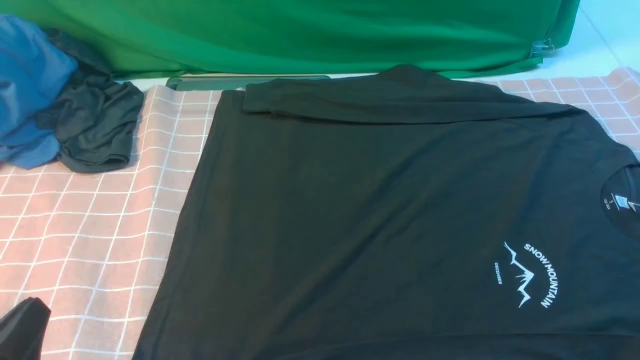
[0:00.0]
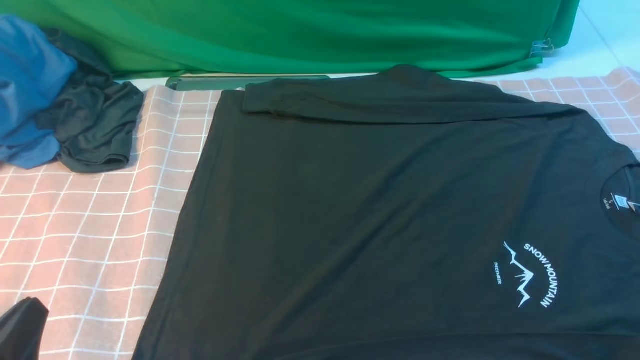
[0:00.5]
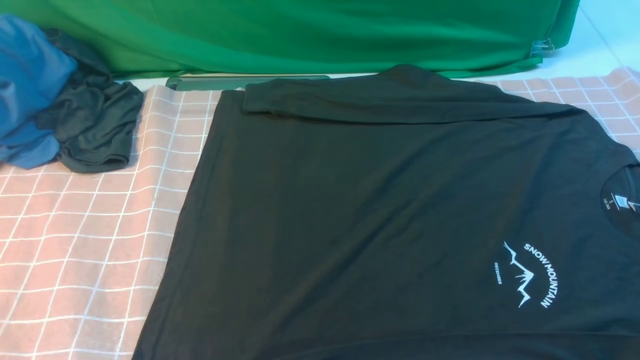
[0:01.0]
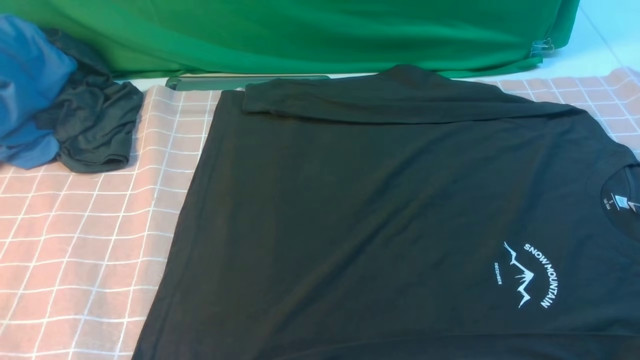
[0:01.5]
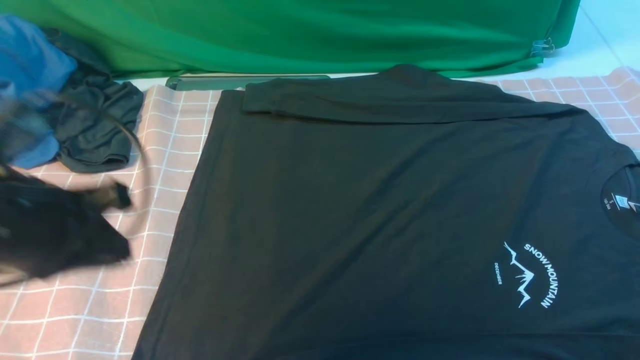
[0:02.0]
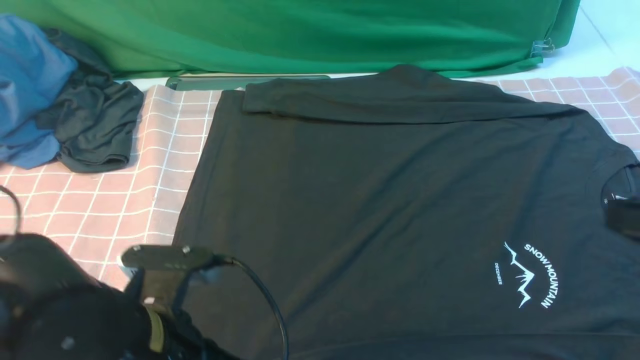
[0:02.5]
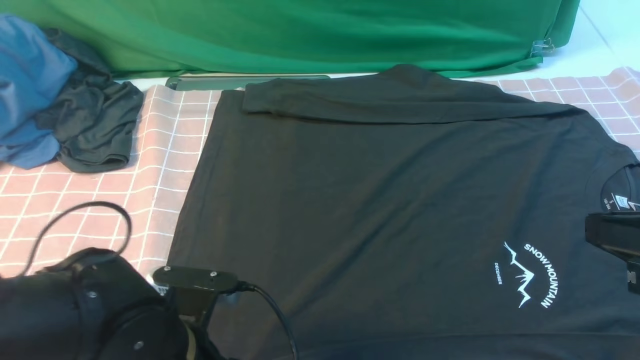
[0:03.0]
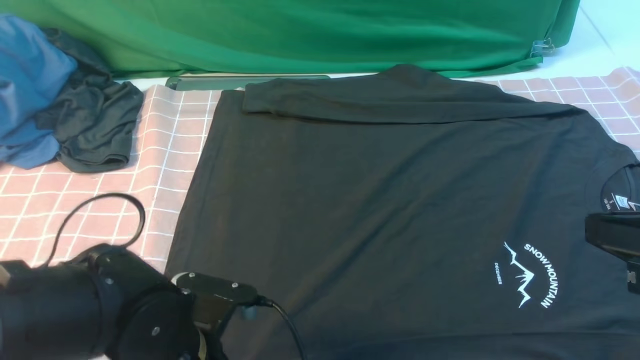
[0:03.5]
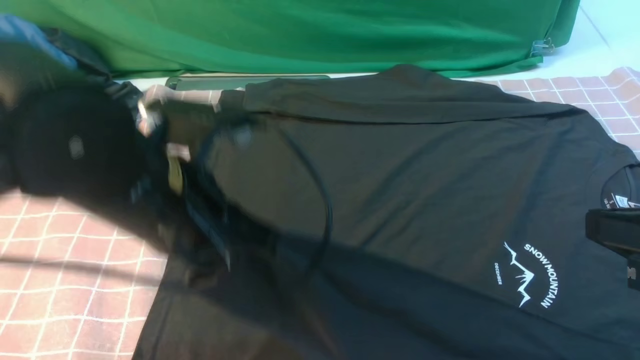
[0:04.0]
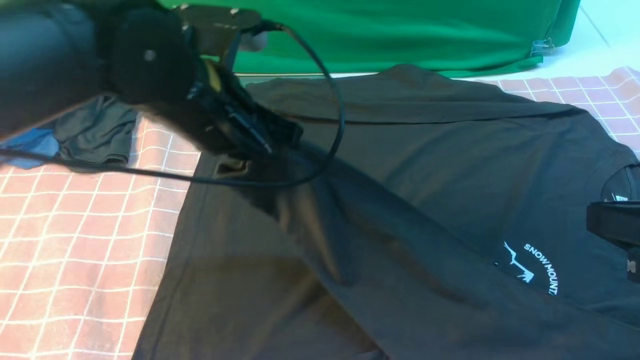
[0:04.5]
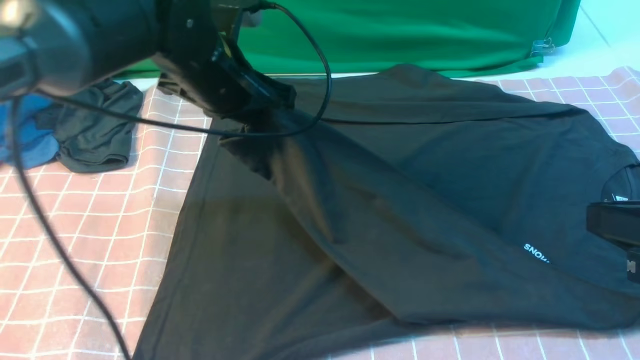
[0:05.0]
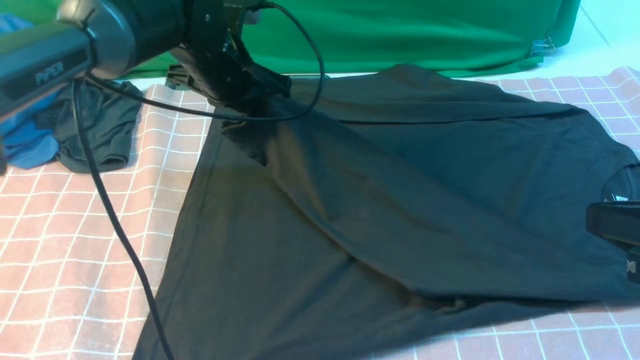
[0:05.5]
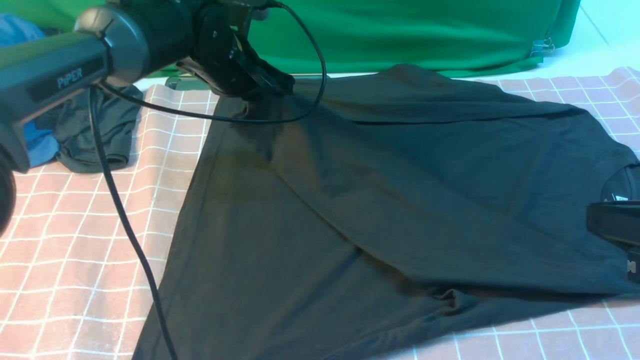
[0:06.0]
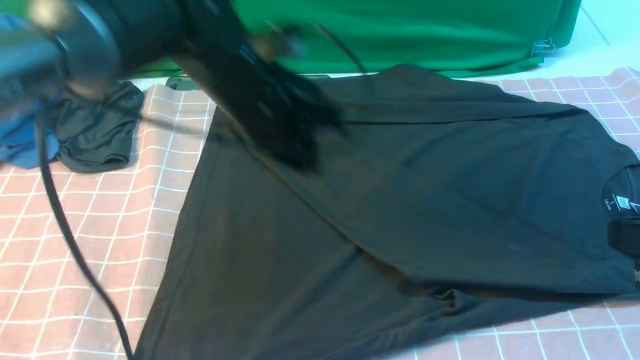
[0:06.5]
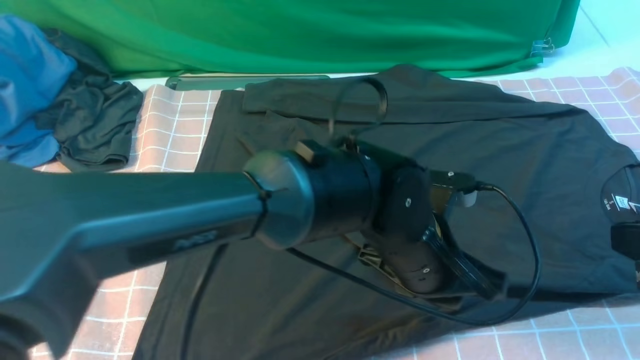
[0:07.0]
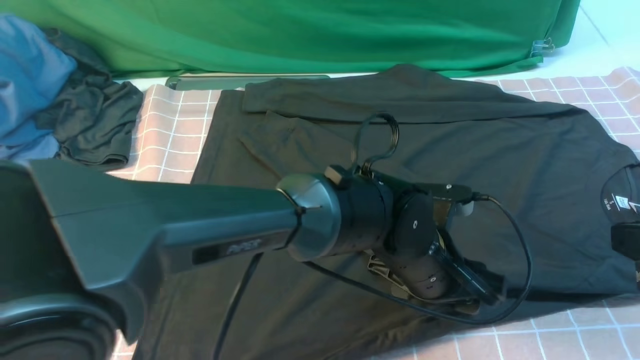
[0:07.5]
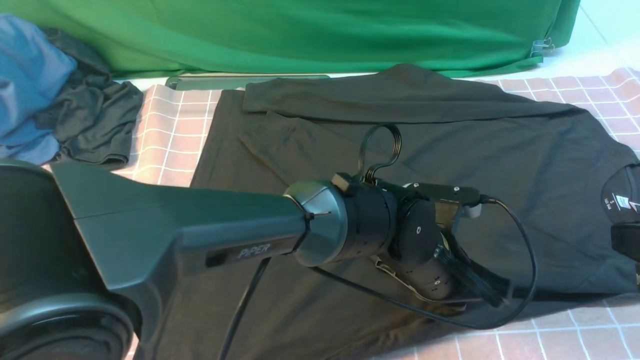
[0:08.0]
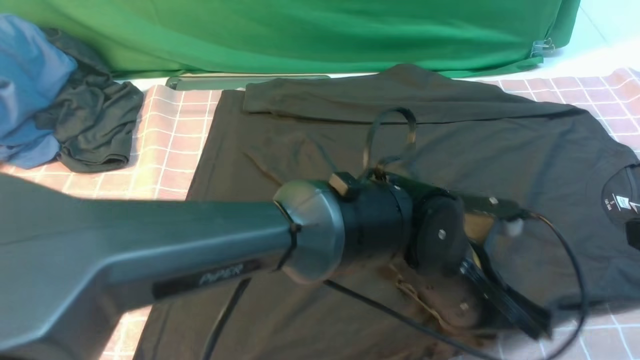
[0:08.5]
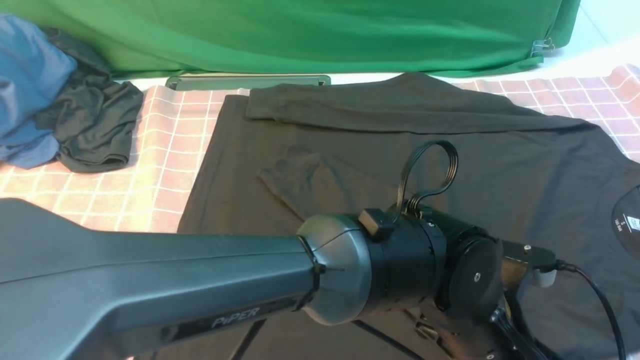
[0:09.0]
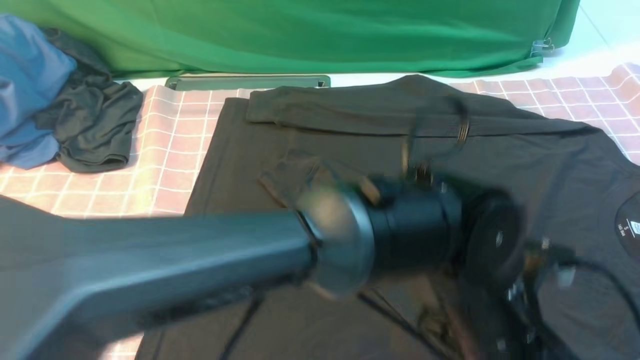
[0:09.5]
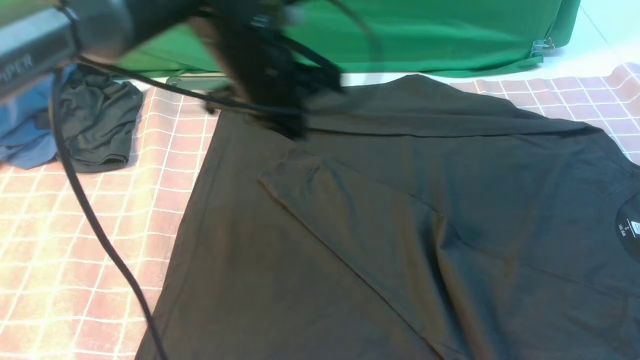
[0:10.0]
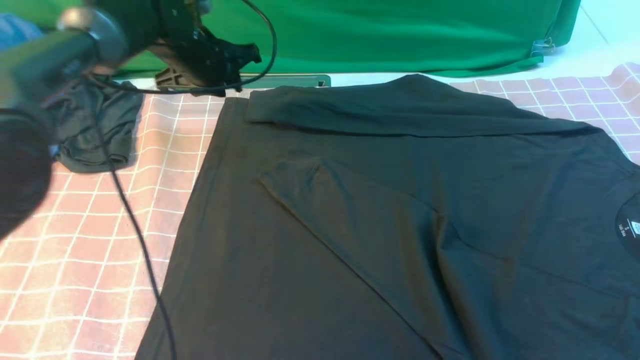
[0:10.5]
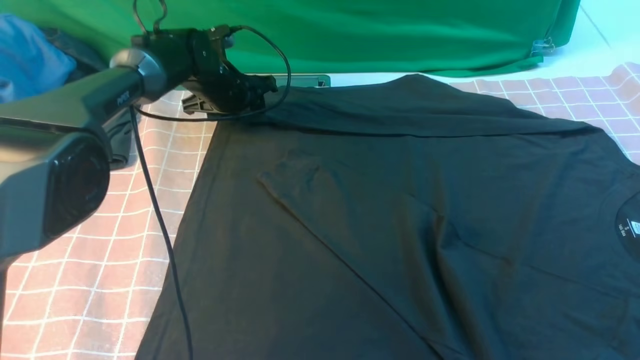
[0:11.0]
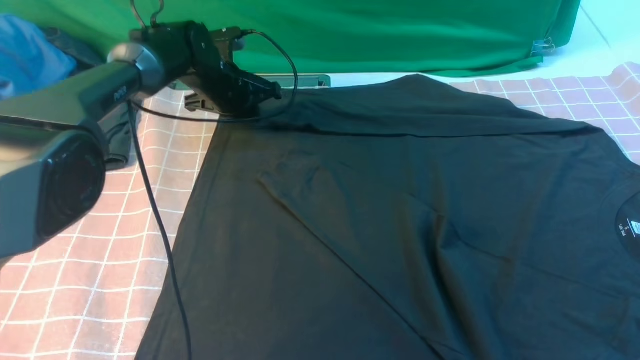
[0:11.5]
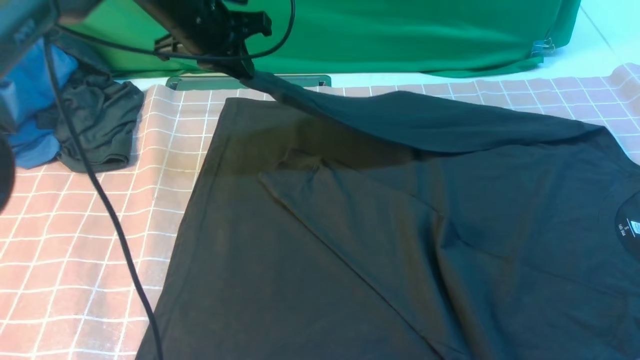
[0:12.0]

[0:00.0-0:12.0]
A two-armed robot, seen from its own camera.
Step, 0:00.0 to 0:03.0: use the left arm to clamp the cuff closest to it.
Step, 0:04.0 to 0:06.0: use the left arm to drag and place the cuff at the centered position on the left edge of the fabric.
Step, 0:06.5 to 0:11.0: use the left arm to clamp the cuff farthest from it.
0:02.0 to 0:04.0: The right gripper shifts approximately 10 cm forward and to the left. Meanwhile the left gripper is displaced to the right by about 15 cm, reaches about 15 cm downward, then returns, and opens and closes again.
0:04.0 to 0:06.0: The left gripper shifts about 25 cm forward.
0:06.0 to 0:08.0: The left gripper travels to the right, backward and downward by about 30 cm, and opens and closes again.
0:08.0 to 0:10.0: The left gripper heads upward, to the left and forward, covering roughly 20 cm.
0:10.0 to 0:12.0: The left gripper moves to the left and forward, approximately 20 cm, and opens, then closes once more.

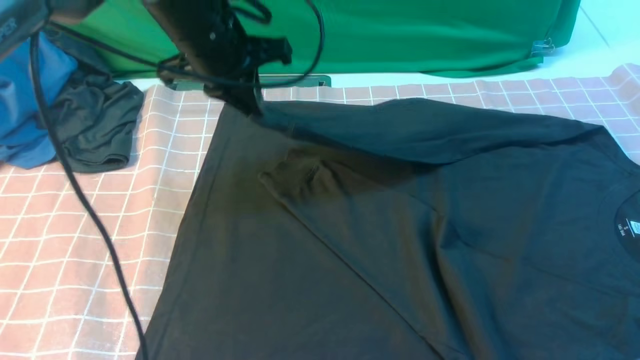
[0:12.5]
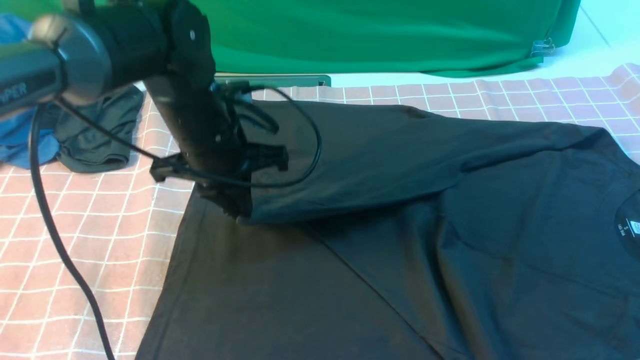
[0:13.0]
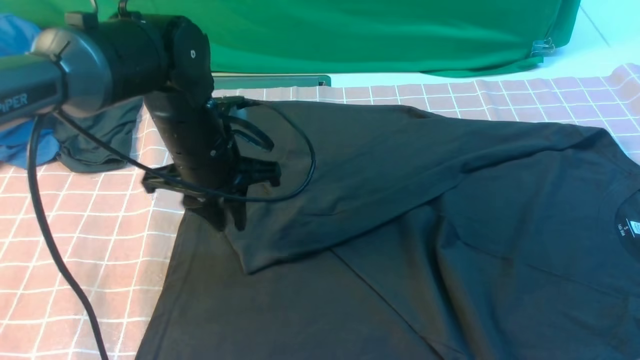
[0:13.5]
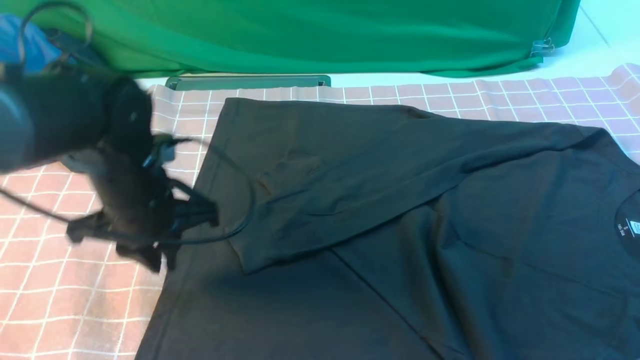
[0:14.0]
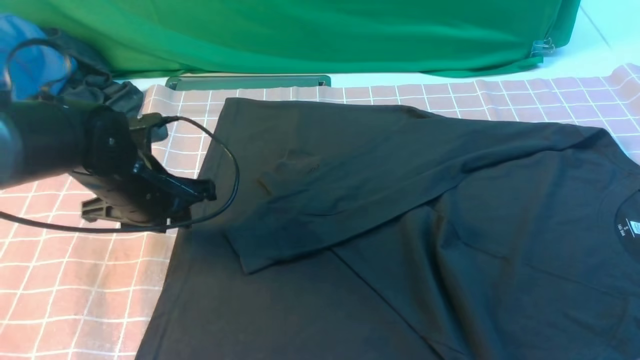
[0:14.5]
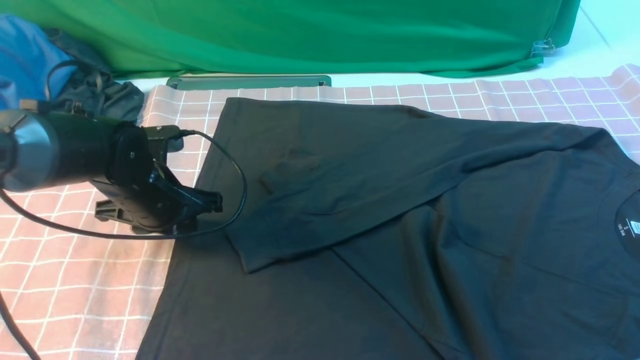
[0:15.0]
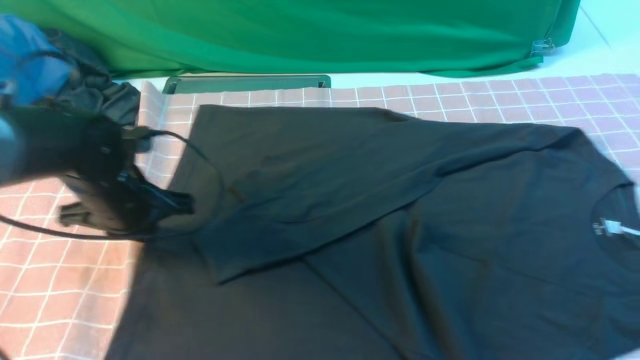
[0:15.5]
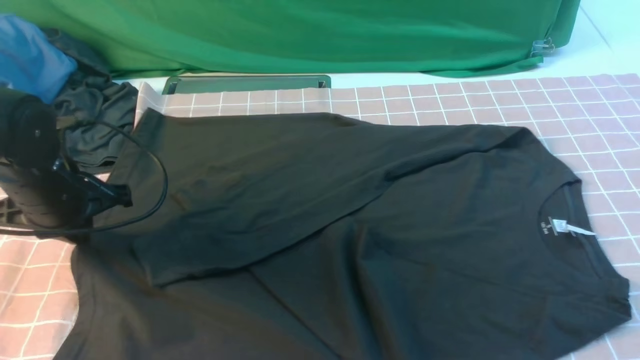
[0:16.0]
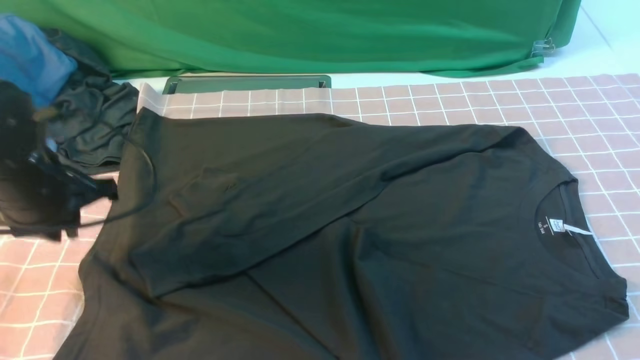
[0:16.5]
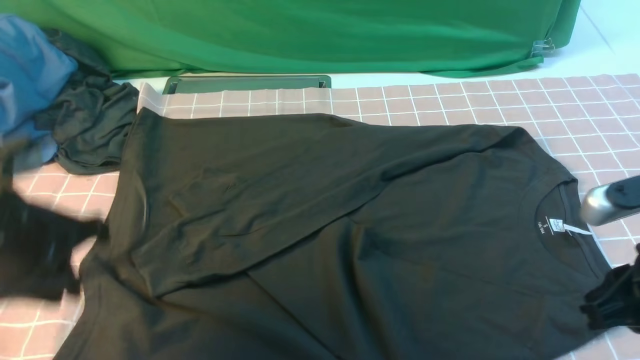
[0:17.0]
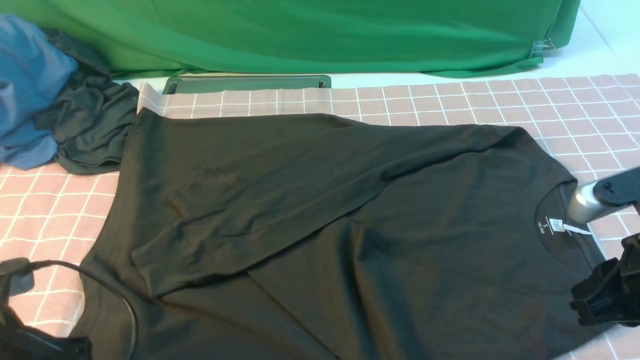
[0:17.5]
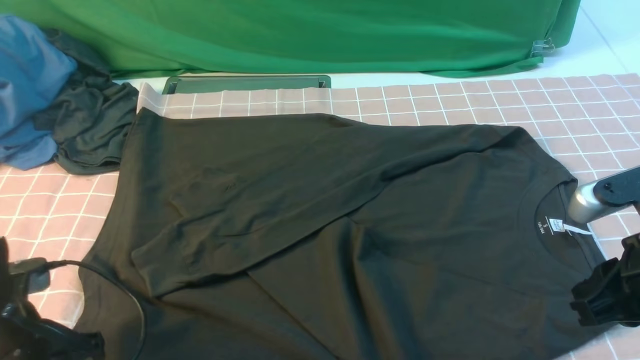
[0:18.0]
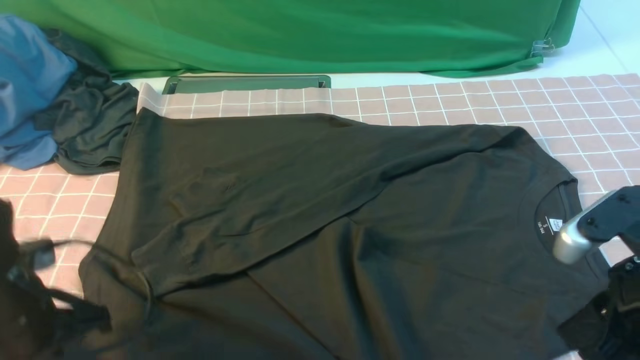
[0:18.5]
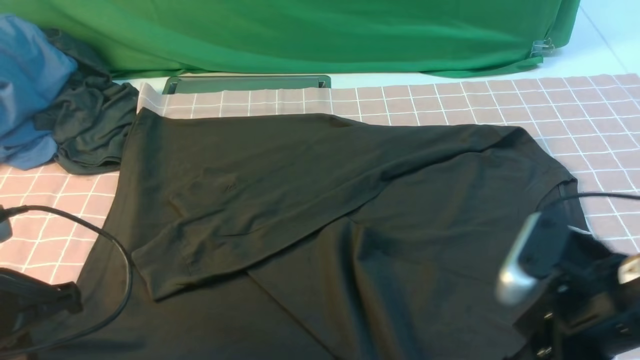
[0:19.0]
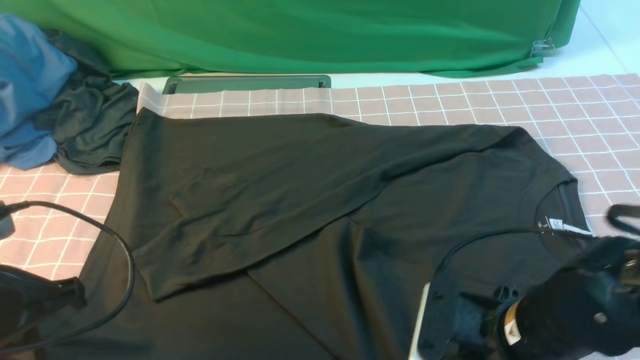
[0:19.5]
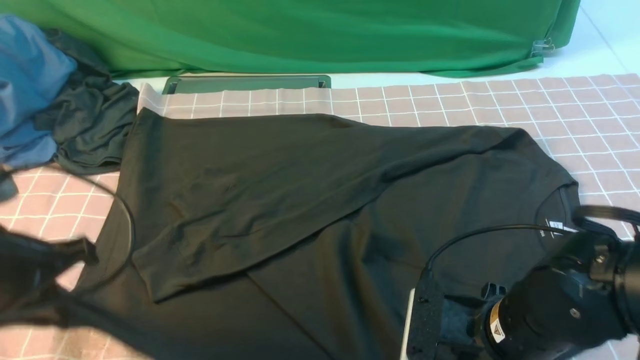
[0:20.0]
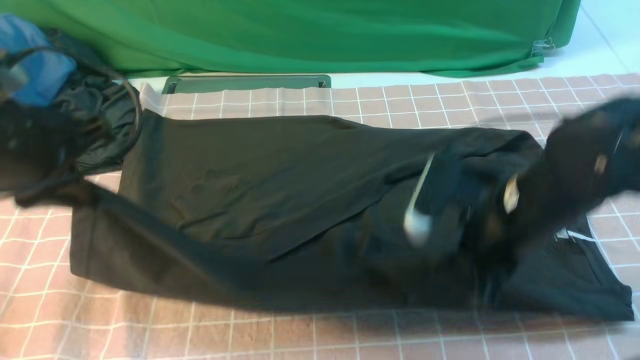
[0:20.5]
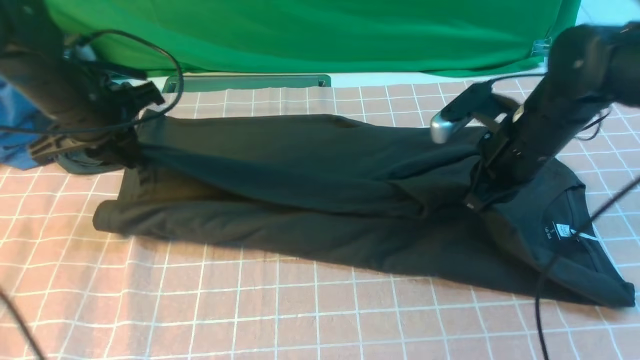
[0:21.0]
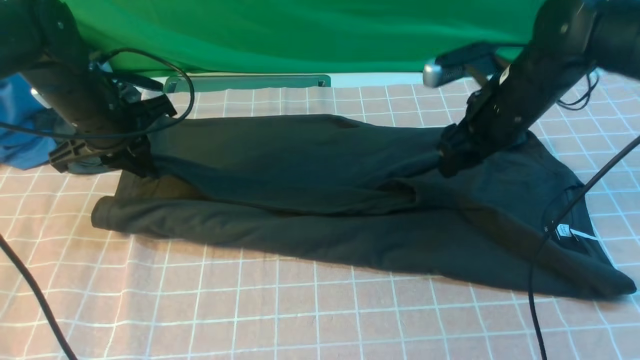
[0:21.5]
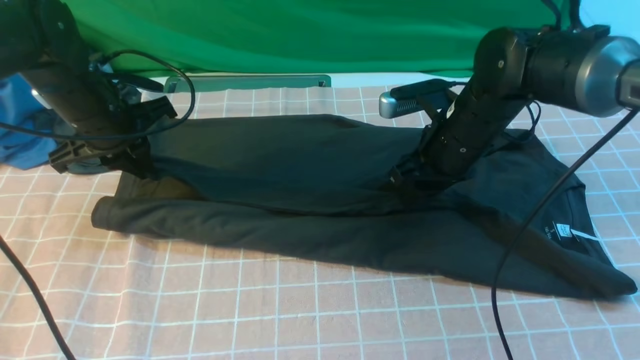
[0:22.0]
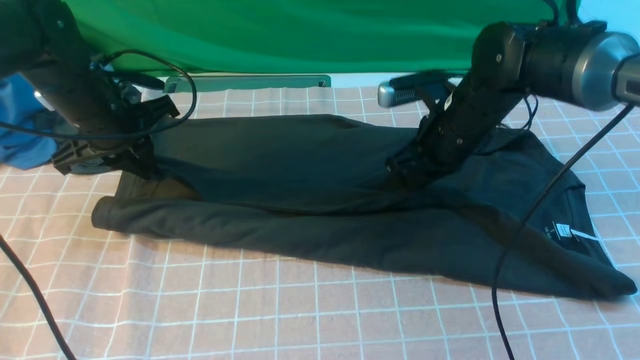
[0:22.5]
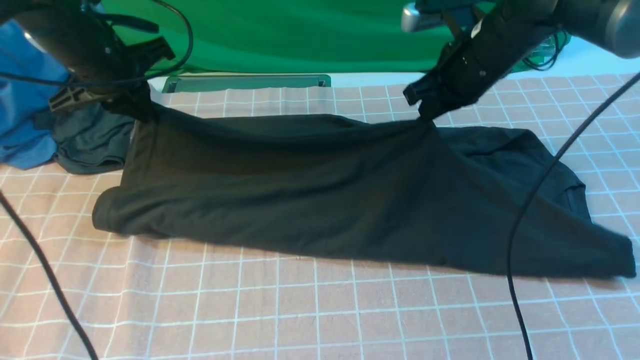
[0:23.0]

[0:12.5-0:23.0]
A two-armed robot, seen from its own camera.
Step, 0:14.0 to 0:19.5: use both arms simultaneously to clamp the lower edge of the clothing fabric.
0:12.5 to 0:14.5: The left gripper heads downward, backward and to the left, covering roughly 15 cm, and opens.
0:14.5 to 0:16.5: The left gripper travels to the left by approximately 5 cm.
0:16.5 to 0:19.0: The right gripper goes about 10 cm to the left and downward, and opens; the left gripper travels backward by roughly 15 cm, and opens, then closes once more.
0:19.0 to 0:21.0: The grippers both shift forward by some 20 cm. The right gripper closes its fingers.
0:21.0 to 0:23.0: The two grippers go approximately 5 cm forward. The right gripper opens and closes again.
